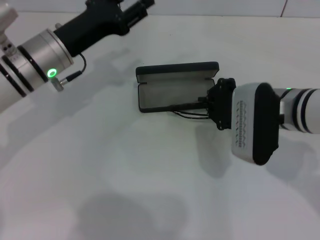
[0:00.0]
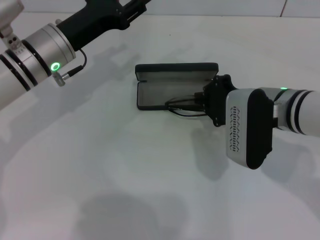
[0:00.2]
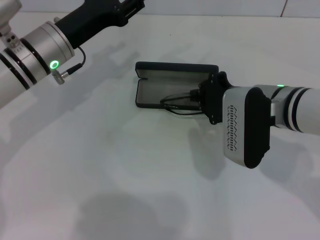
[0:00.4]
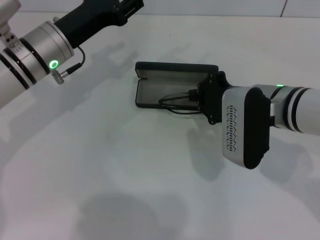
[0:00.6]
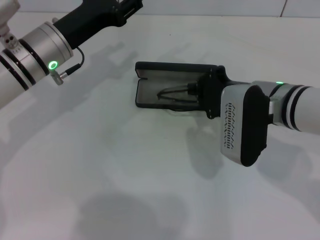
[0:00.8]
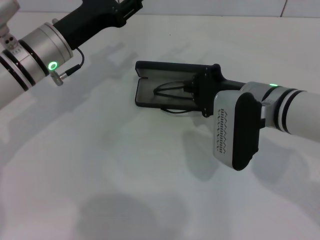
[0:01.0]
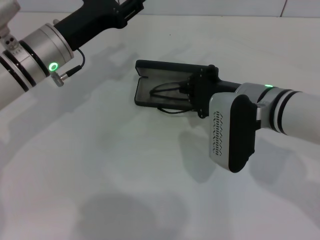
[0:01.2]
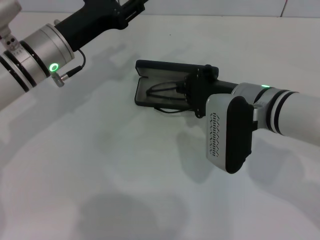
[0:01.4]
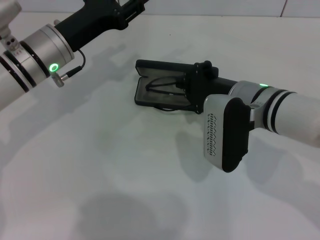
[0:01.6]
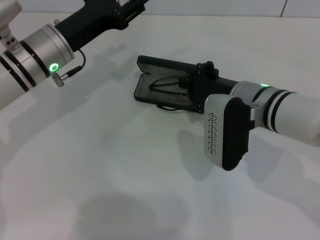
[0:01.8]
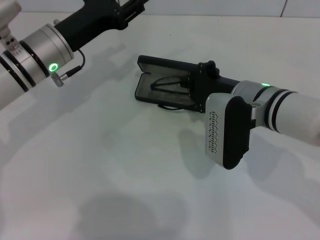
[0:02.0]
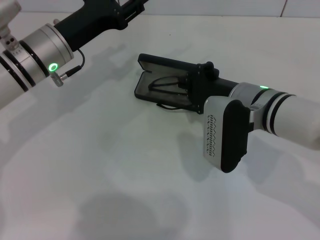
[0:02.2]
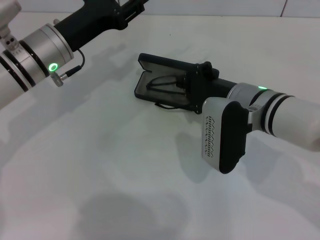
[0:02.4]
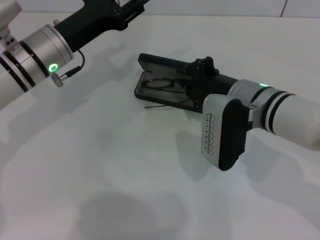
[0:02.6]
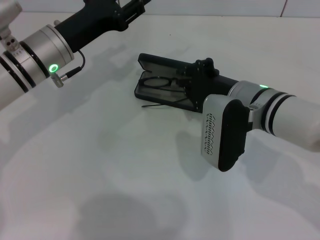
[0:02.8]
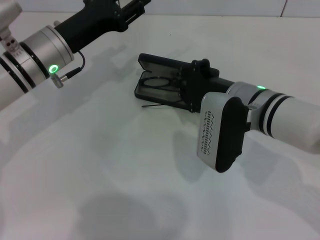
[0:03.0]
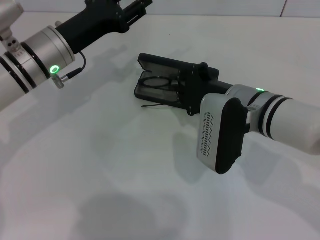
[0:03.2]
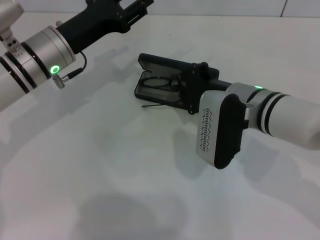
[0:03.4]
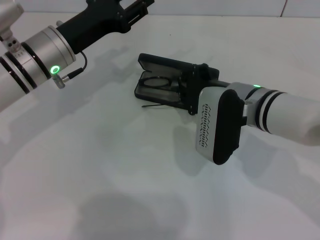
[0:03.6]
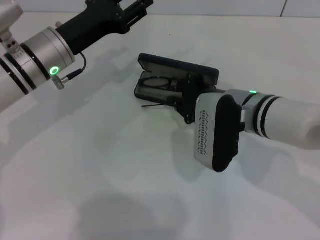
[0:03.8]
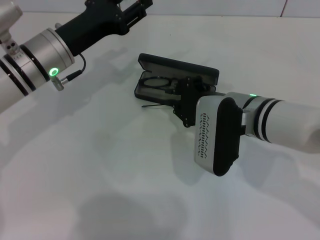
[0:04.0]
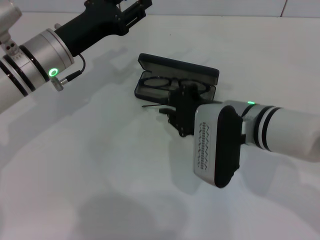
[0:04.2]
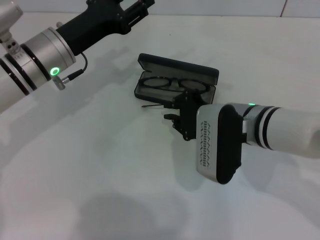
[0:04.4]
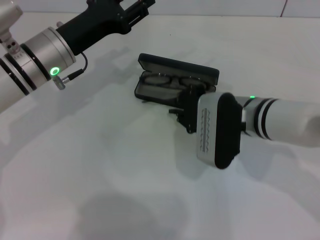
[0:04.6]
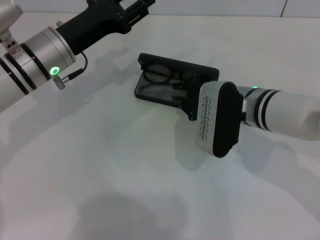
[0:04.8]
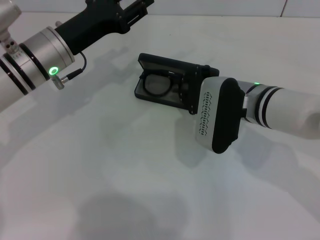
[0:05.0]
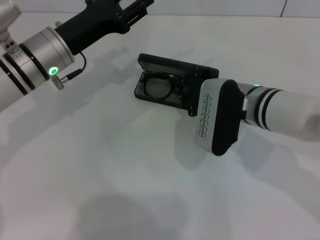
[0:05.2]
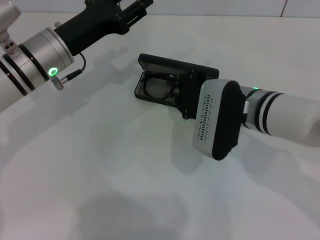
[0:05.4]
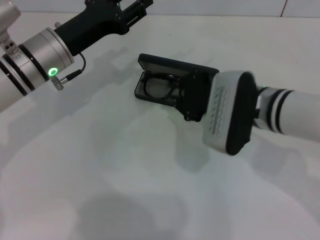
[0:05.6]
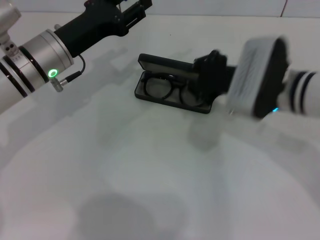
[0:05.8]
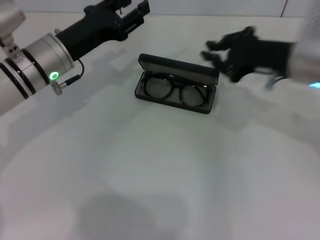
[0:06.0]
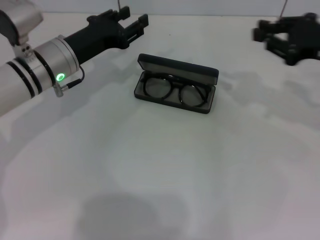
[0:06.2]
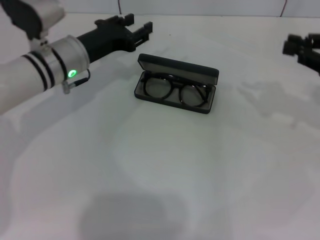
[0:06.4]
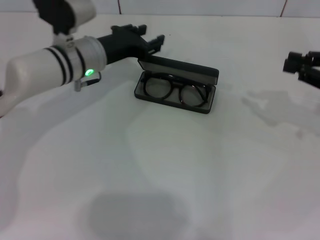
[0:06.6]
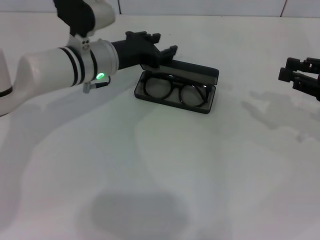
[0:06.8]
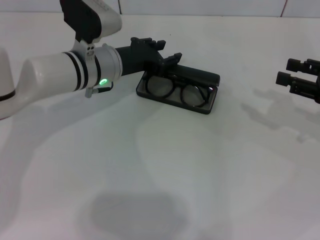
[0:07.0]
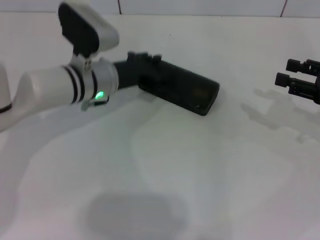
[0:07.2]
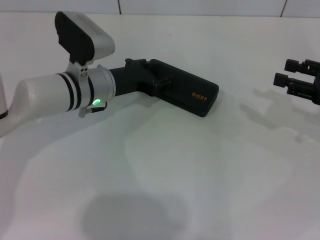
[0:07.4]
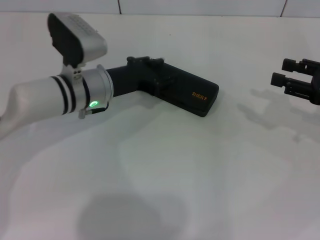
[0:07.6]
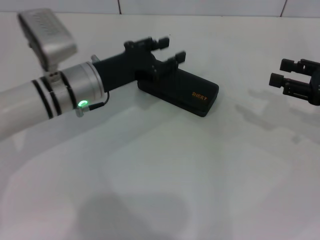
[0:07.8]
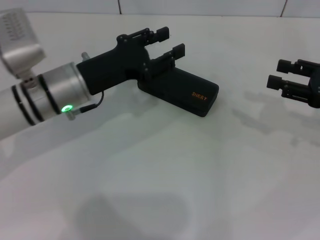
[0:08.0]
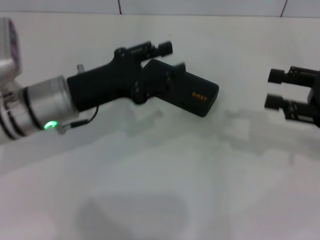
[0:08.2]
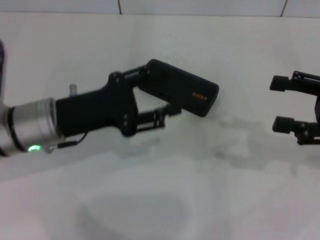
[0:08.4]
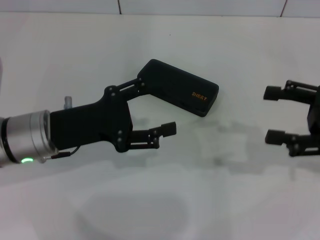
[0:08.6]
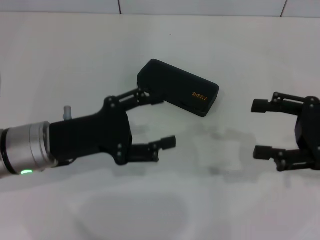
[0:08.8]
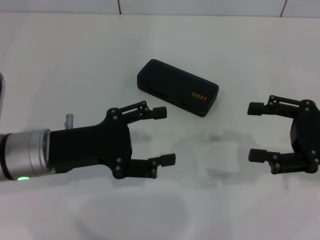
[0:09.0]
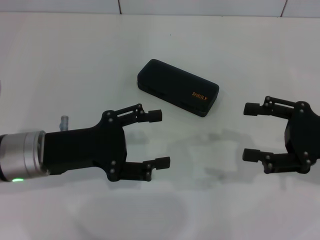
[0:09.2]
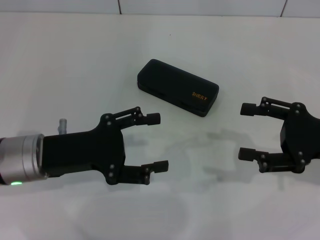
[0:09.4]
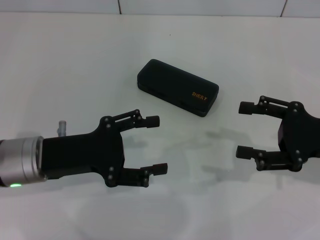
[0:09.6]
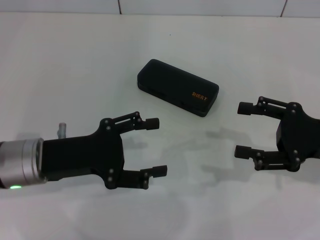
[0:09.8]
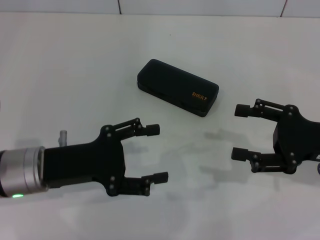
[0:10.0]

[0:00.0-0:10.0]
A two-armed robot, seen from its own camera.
Step, 0:00.0 to 0:05.8: Put the glasses into the case with your right hand.
Step, 0:06.0 to 0:07.8: Close the glasses case with your left hand.
0:00.0 to 0:04.2: The grippers stay close to where they were, moving slightly.
0:04.2 to 0:05.8: The right gripper moves roughly 5 cm.
0:05.8 to 0:07.2: The left gripper travels to the right by about 5 cm. The right gripper travels to the right by approximately 20 cm.
0:07.2 to 0:08.6: The right gripper ends up about 5 cm from where it was; the left gripper moves backward and to the left, approximately 15 cm.
0:08.6 to 0:10.0: The right gripper shifts by roughly 5 cm.

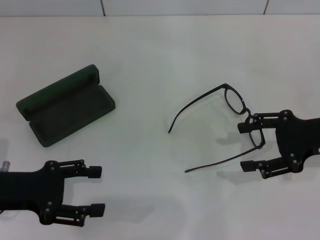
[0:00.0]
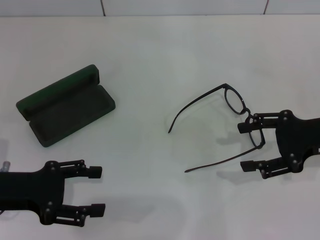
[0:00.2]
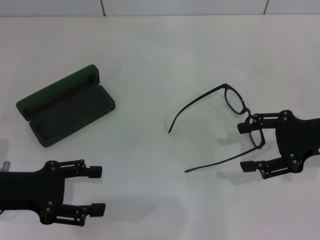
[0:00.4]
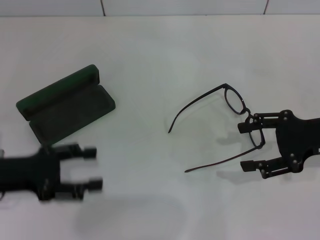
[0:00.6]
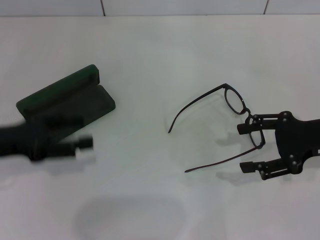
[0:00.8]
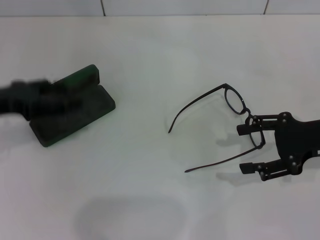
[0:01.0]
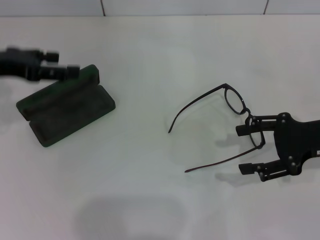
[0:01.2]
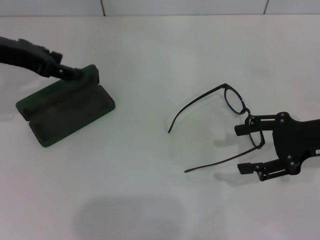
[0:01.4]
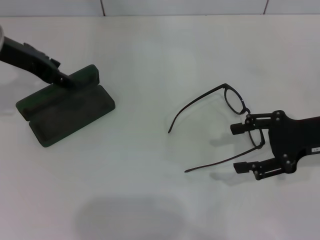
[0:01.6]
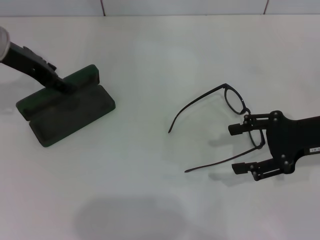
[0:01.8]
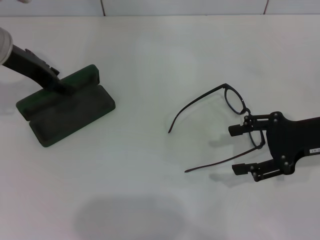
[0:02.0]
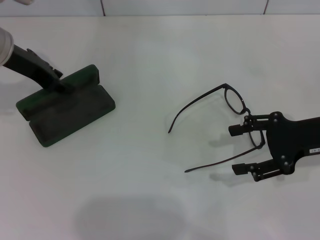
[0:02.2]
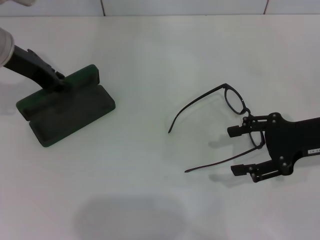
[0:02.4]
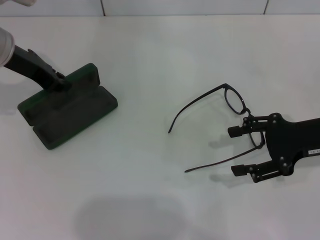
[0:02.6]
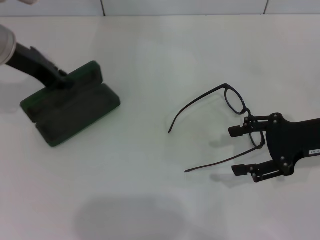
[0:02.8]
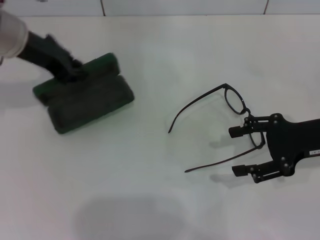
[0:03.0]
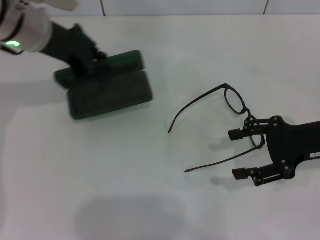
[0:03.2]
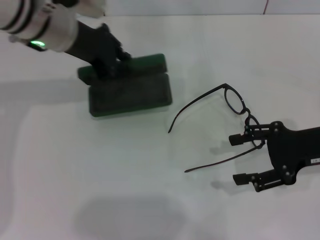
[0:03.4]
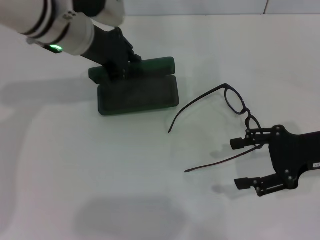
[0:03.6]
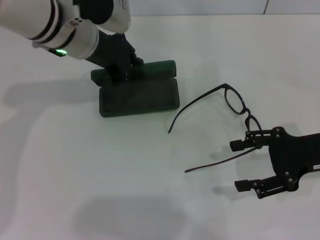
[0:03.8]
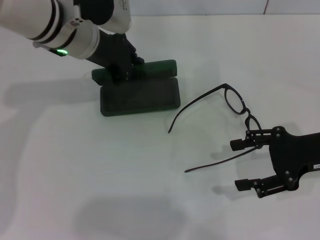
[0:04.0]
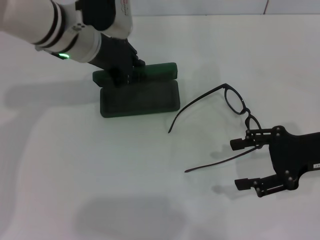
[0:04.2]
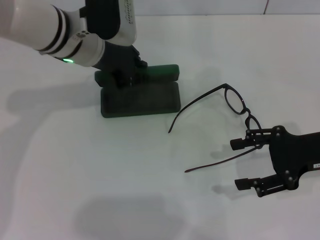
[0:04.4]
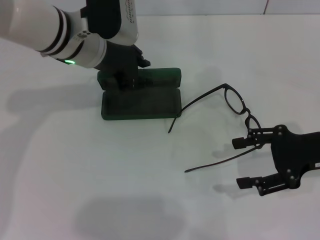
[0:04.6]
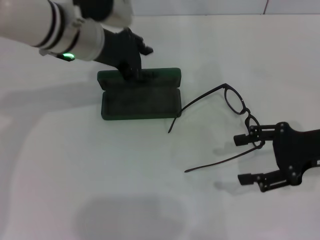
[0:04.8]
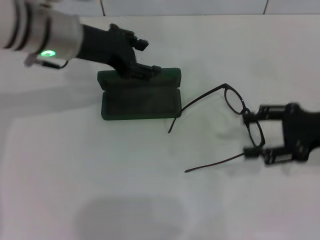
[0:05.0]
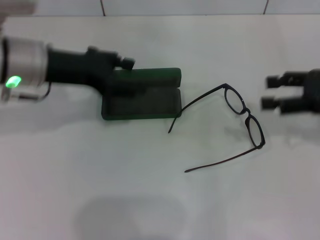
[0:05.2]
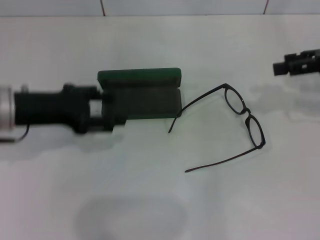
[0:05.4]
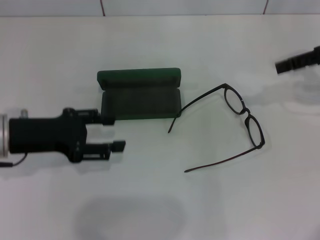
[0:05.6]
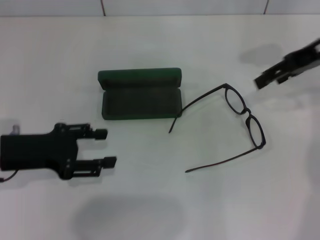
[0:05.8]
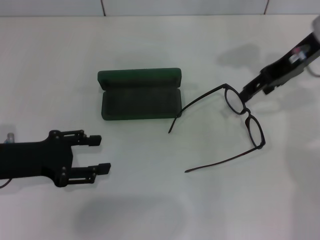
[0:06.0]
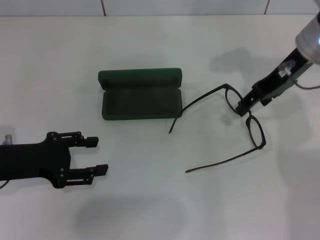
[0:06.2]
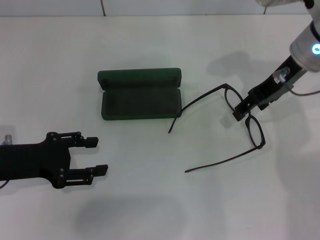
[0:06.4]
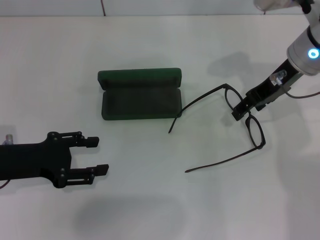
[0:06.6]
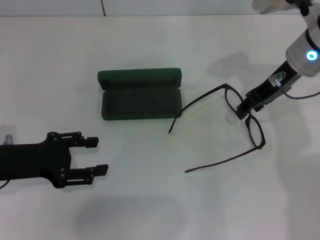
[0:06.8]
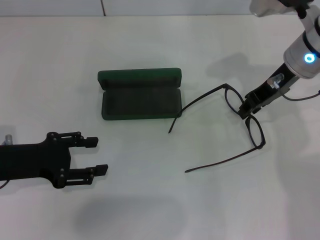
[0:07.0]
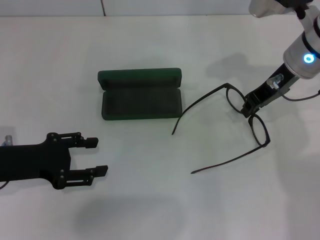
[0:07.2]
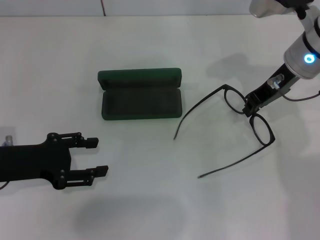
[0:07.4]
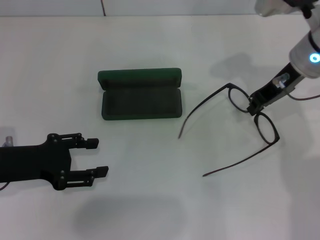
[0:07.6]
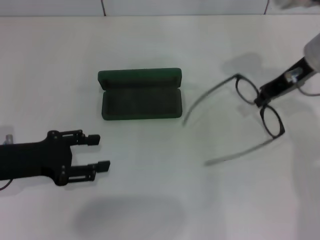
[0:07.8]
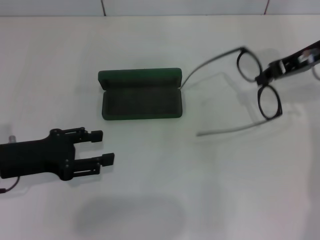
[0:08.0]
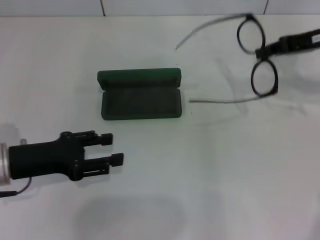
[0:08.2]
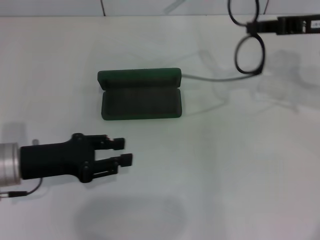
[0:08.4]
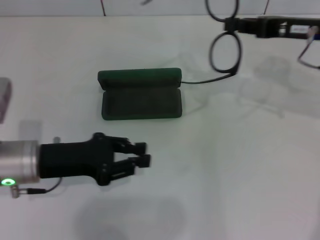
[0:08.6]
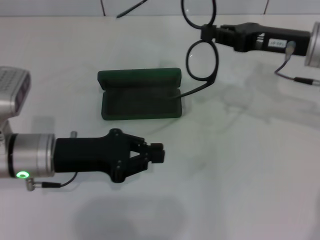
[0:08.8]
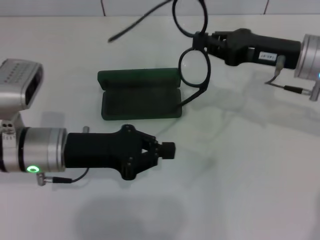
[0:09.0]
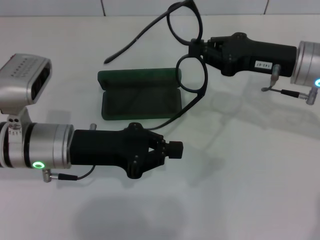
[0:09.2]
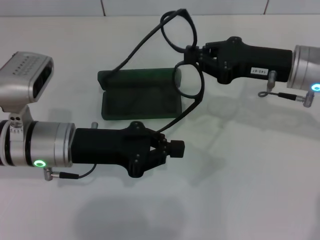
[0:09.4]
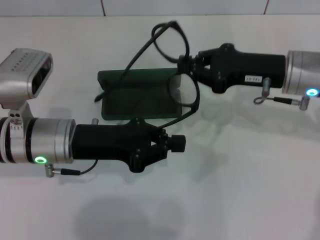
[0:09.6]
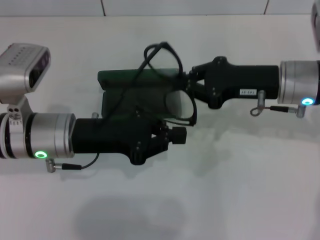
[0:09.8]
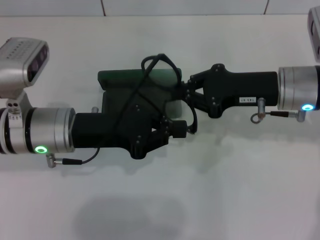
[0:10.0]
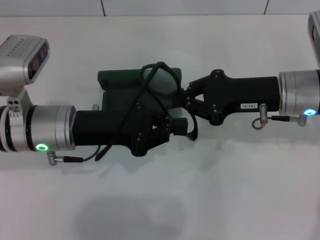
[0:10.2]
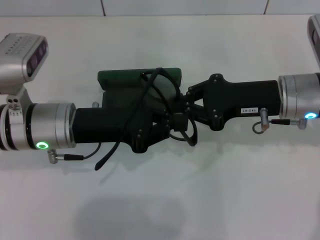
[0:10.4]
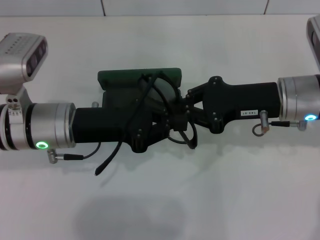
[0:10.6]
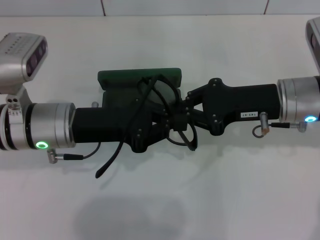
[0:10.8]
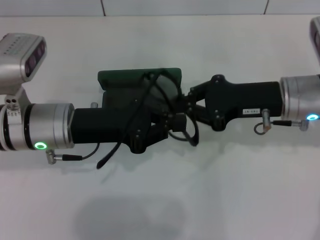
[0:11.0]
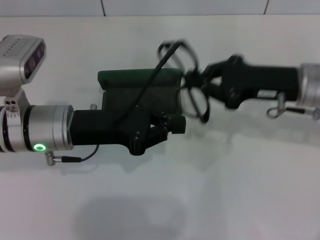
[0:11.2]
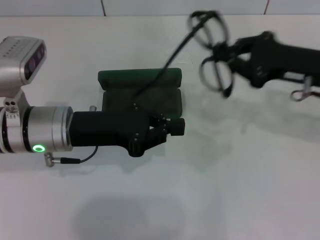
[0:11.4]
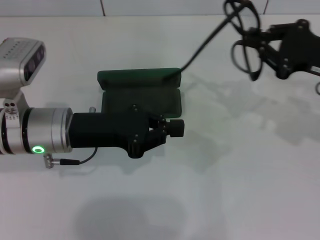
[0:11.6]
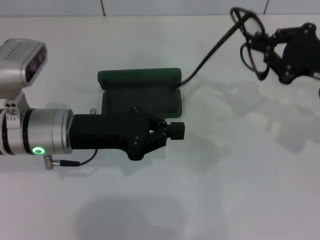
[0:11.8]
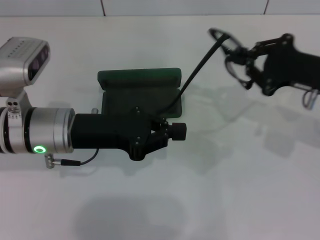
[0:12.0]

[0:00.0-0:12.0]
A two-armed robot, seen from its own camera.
Step, 0:00.0 to 0:02.6: Grab the glasses case with your left hand.
Step, 0:02.8 to 0:04.6: Place the glasses case in the center of the table with your left hand.
Step, 0:04.8 to 0:07.6: Grab the eyeglass frame with your right hand.
0:00.0 to 0:01.6: The left gripper heads forward and upward, covering approximately 20 cm.
0:01.6 to 0:03.0: The left gripper closes up.
0:03.0 to 0:04.4: The left gripper travels to the right by about 10 cm.
0:04.4 to 0:06.0: The left gripper travels to the left, backward and downward by roughly 20 cm, and opens its fingers; the right gripper goes some 15 cm forward, upward and to the left.
0:06.0 to 0:07.6: The right gripper closes up.
0:07.6 to 0:09.0: The right gripper goes to the right and returns, about 10 cm each way. Meanwhile the left gripper shifts roughly 10 cm to the right, and closes.
0:10.4 to 0:12.0: The right gripper is displaced to the right by about 10 cm.
